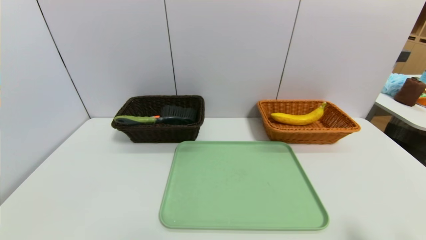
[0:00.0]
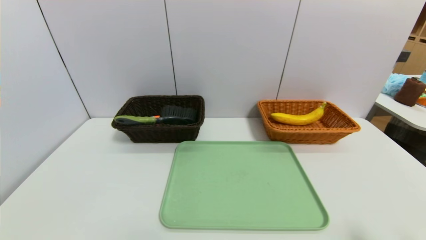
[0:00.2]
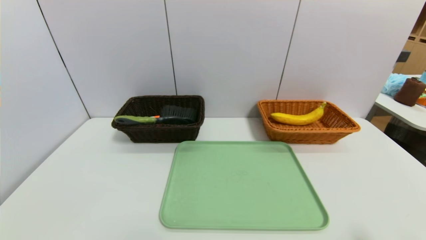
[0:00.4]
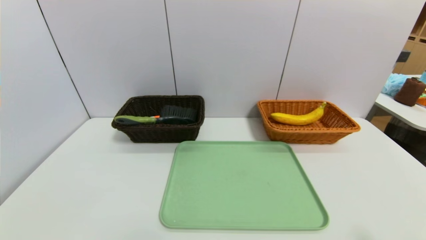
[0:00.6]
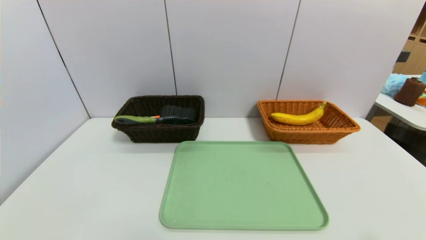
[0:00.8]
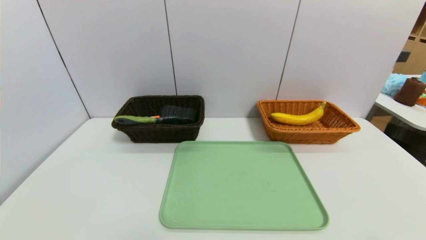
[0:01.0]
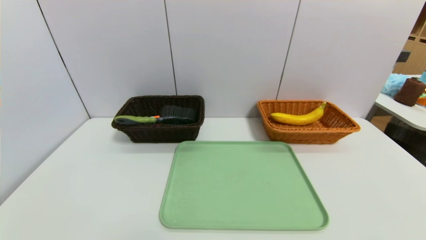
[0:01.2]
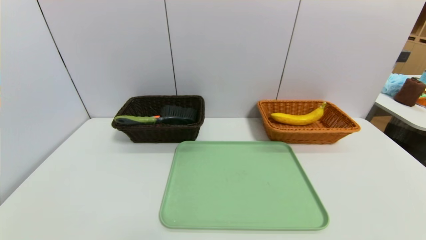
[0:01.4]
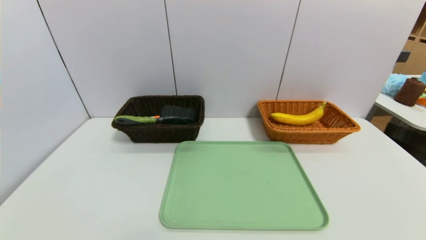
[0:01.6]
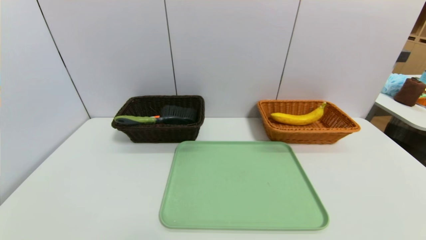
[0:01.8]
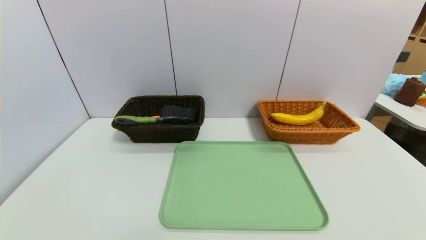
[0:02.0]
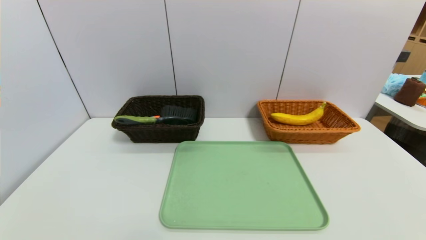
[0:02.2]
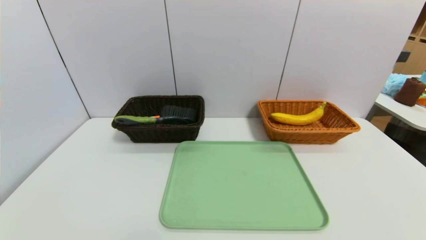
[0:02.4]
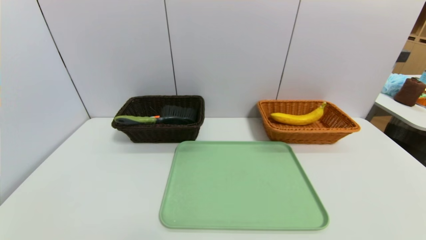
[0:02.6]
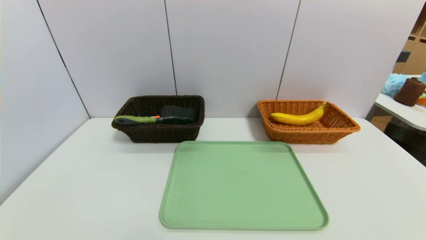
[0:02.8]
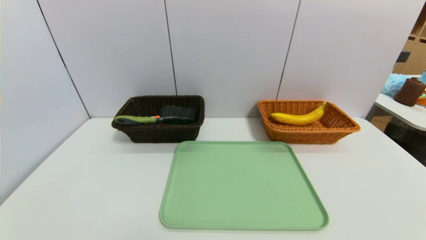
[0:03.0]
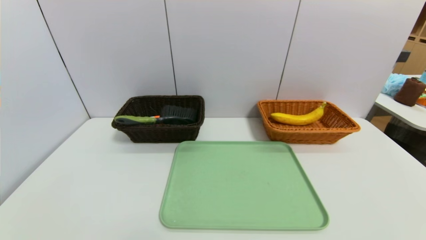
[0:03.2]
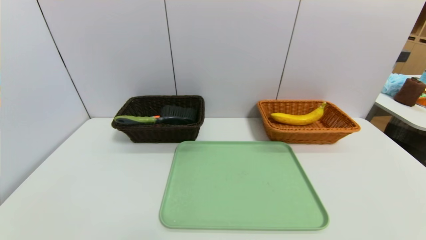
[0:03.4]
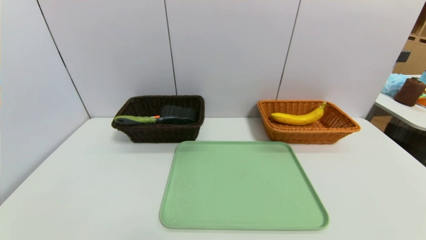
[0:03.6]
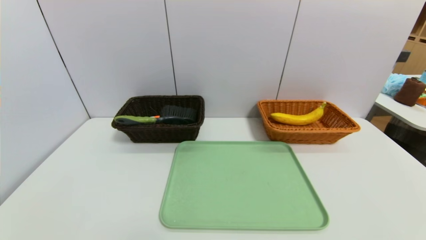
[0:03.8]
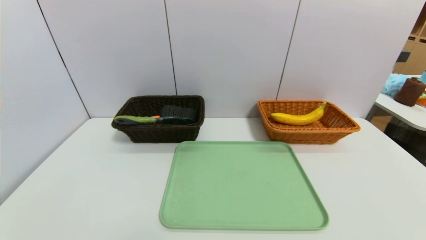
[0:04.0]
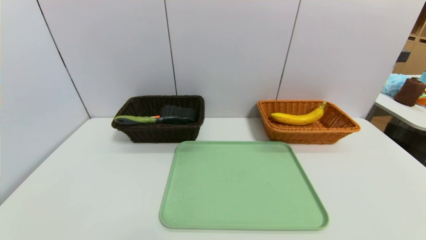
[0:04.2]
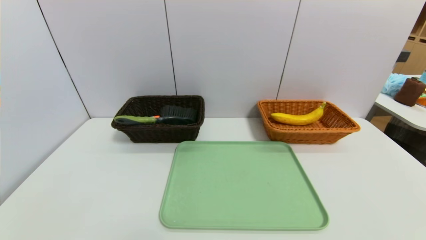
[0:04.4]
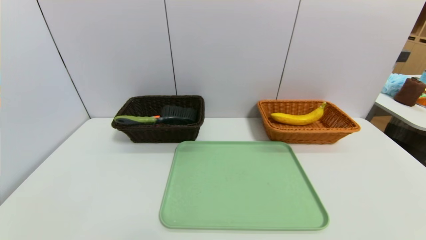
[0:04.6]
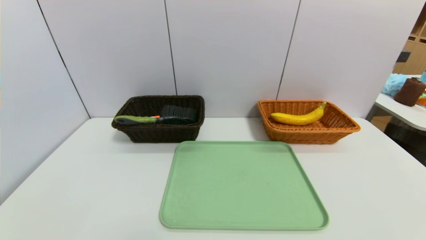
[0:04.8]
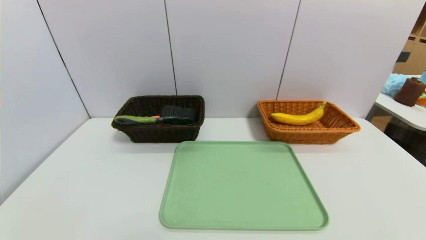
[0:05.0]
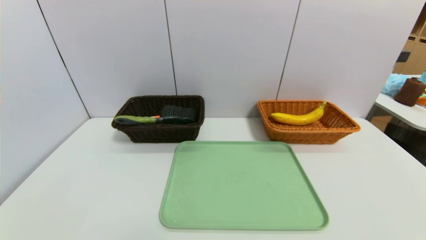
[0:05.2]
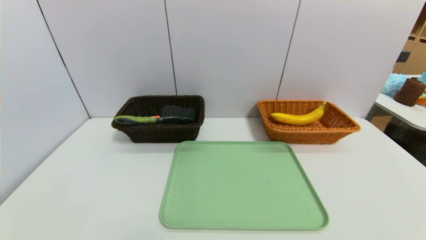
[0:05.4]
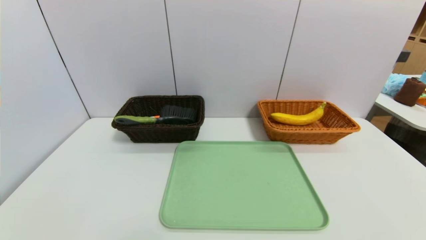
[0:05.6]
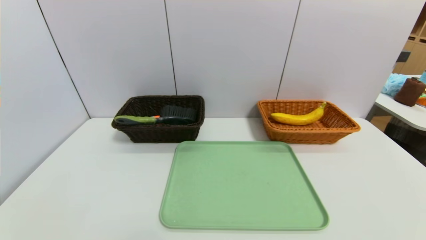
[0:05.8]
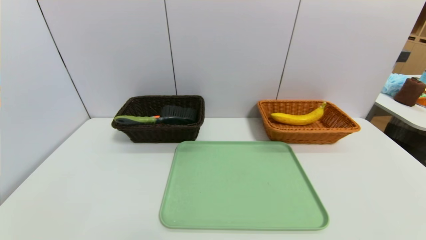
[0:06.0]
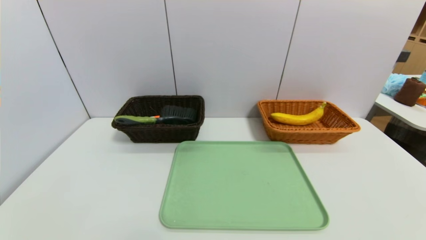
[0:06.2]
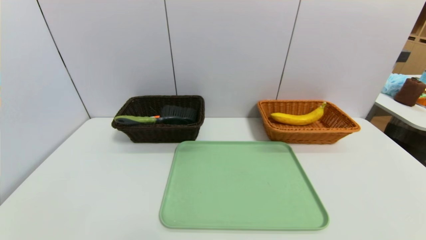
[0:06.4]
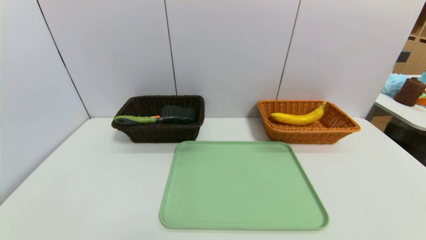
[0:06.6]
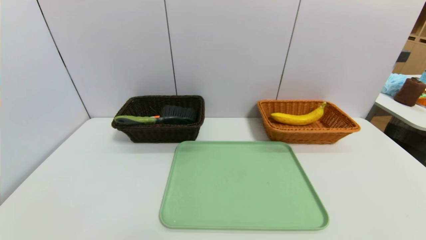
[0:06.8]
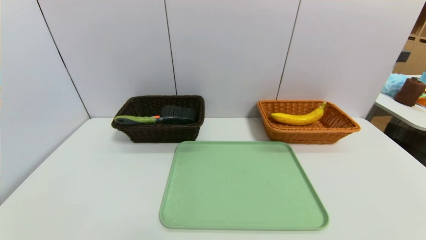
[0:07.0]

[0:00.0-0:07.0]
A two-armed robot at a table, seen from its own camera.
Task of the whole recording: place the food in the right basket with the right gripper, and place the non food items in the left basket with the left gripper.
0:05.6 to 0:07.0: Neither gripper changes place.

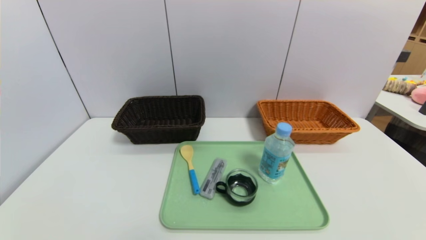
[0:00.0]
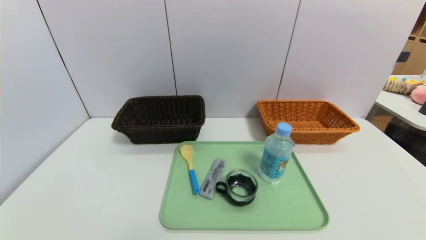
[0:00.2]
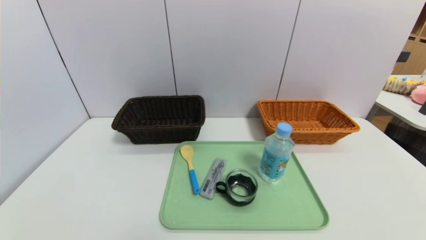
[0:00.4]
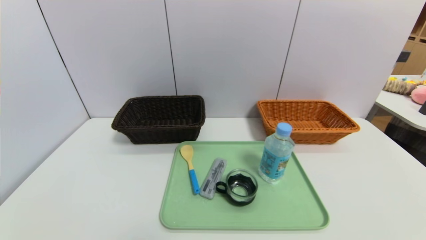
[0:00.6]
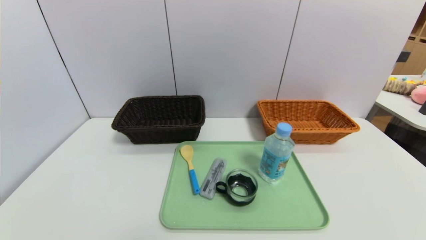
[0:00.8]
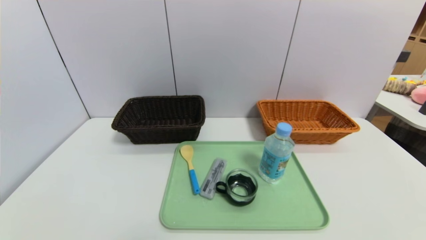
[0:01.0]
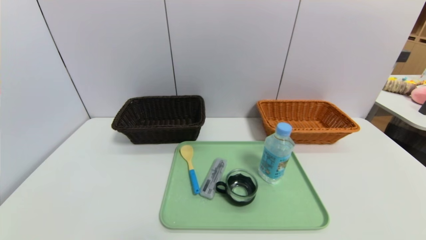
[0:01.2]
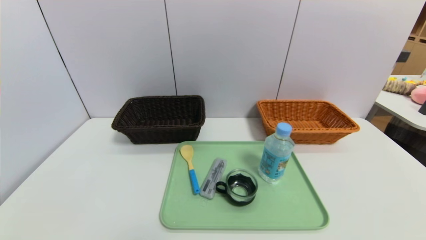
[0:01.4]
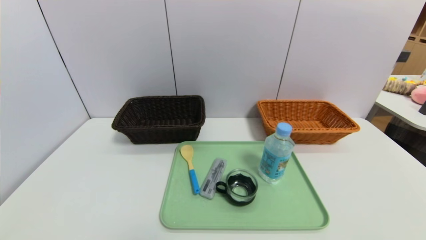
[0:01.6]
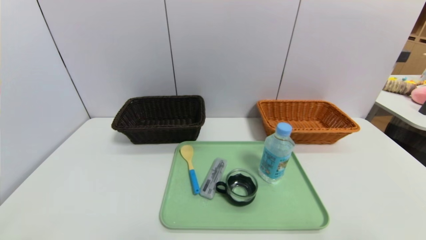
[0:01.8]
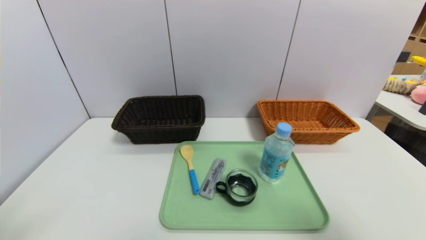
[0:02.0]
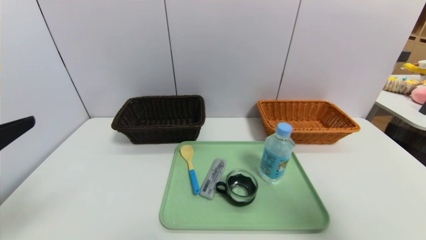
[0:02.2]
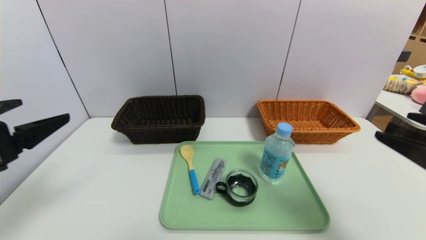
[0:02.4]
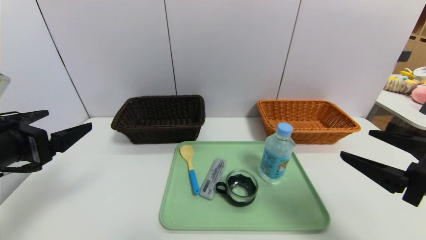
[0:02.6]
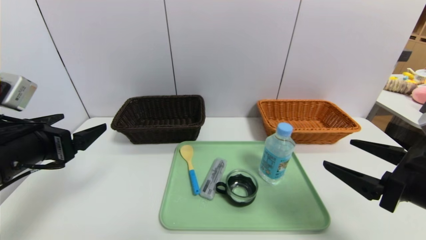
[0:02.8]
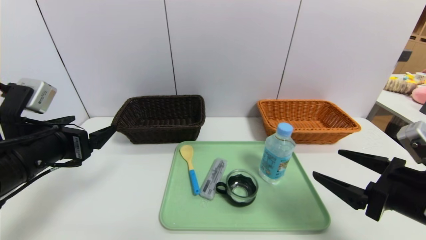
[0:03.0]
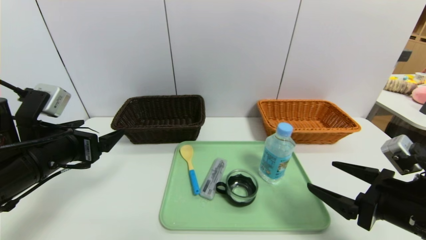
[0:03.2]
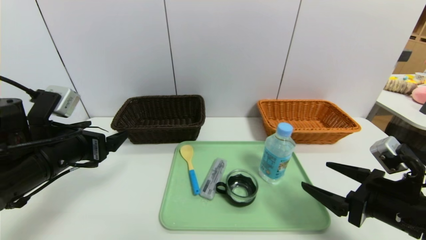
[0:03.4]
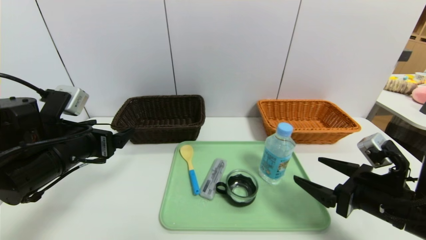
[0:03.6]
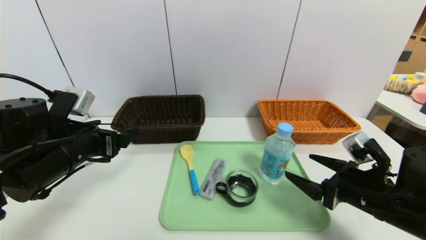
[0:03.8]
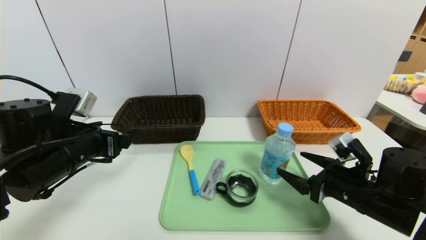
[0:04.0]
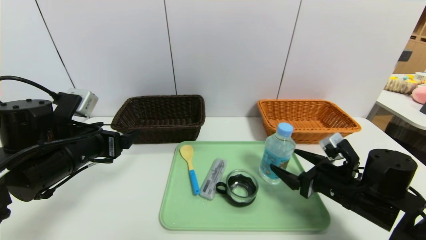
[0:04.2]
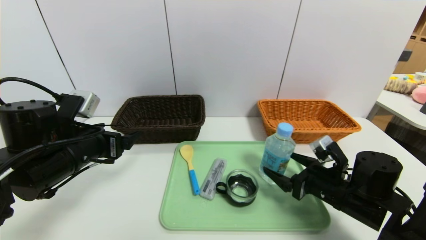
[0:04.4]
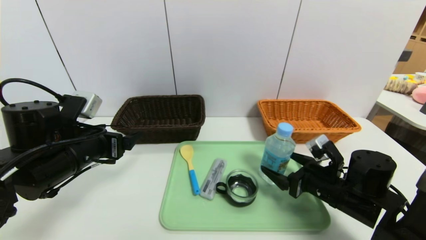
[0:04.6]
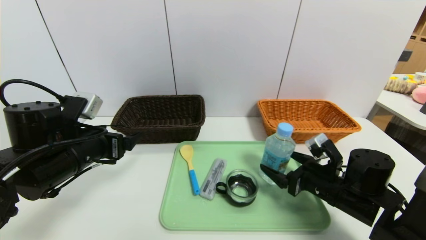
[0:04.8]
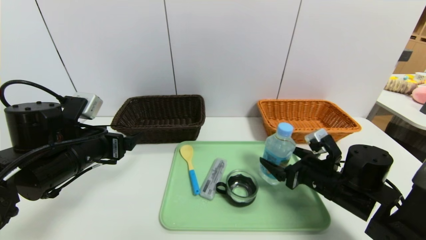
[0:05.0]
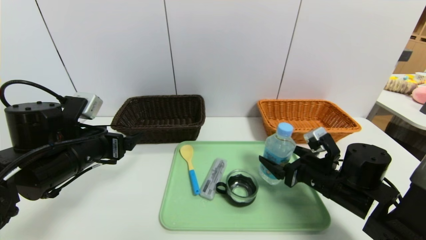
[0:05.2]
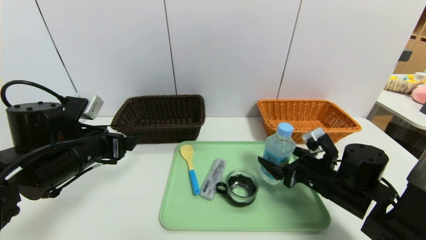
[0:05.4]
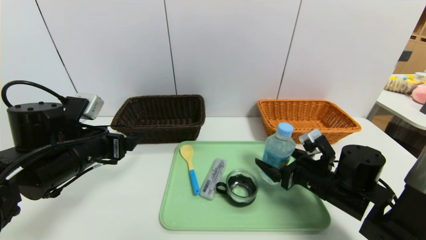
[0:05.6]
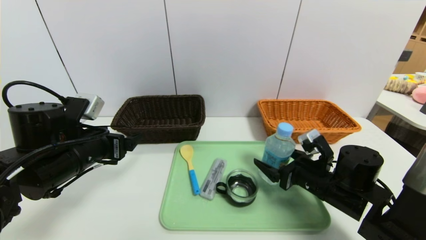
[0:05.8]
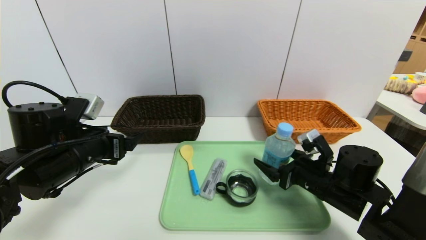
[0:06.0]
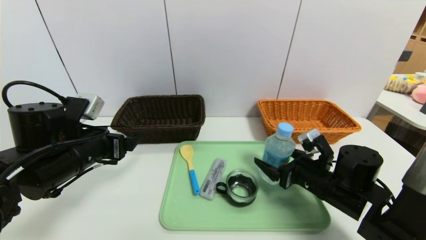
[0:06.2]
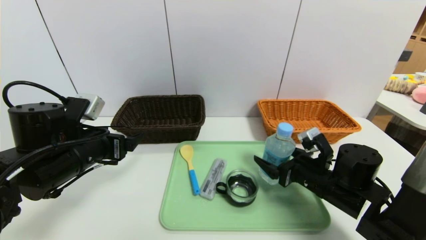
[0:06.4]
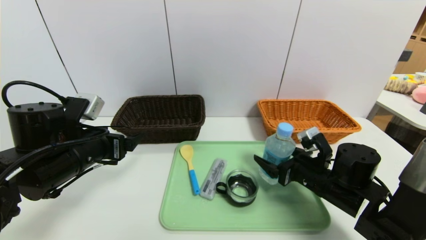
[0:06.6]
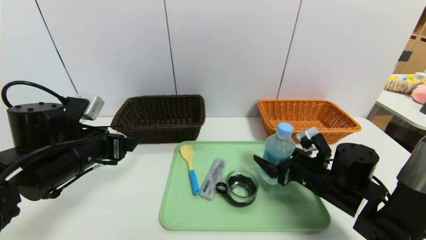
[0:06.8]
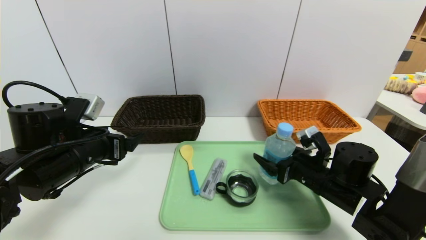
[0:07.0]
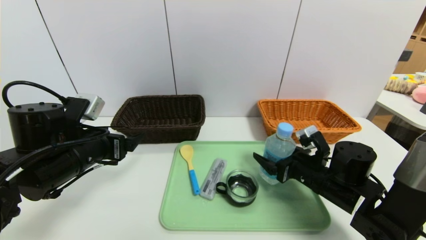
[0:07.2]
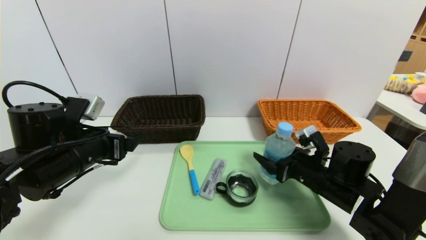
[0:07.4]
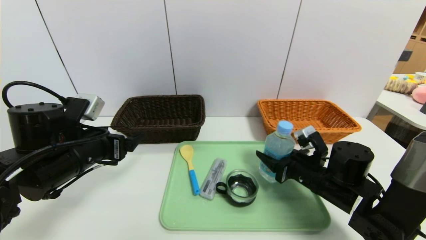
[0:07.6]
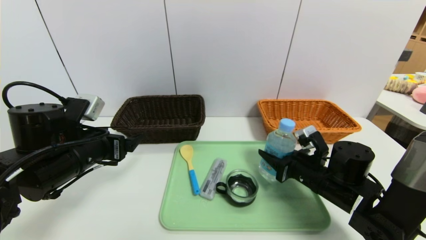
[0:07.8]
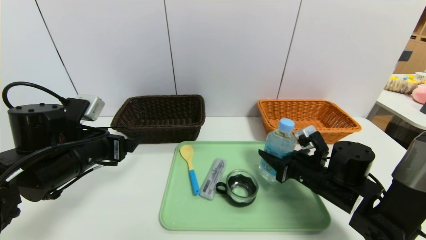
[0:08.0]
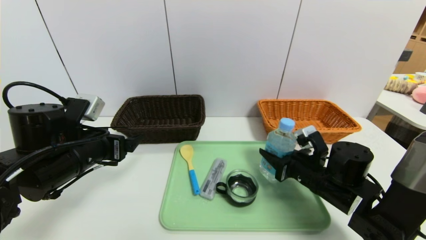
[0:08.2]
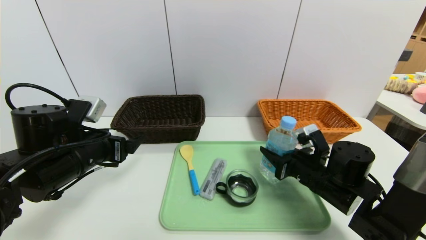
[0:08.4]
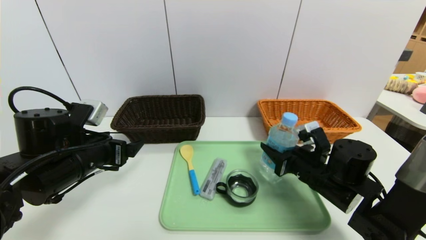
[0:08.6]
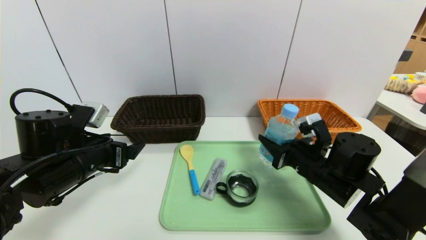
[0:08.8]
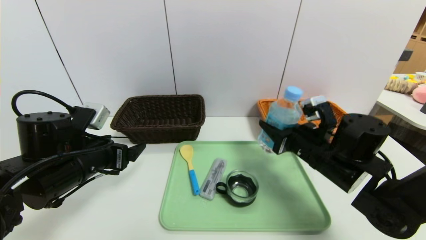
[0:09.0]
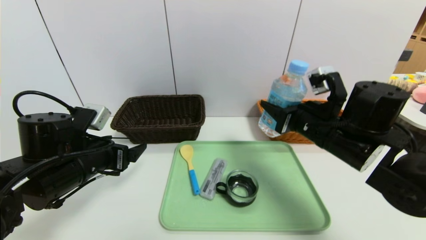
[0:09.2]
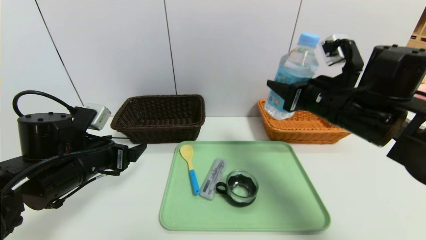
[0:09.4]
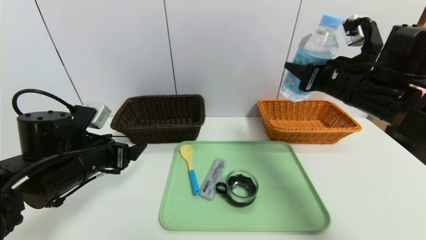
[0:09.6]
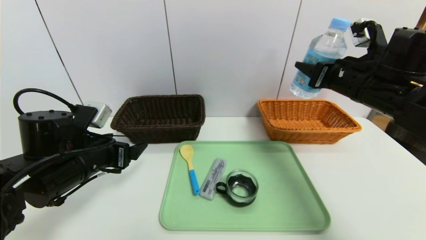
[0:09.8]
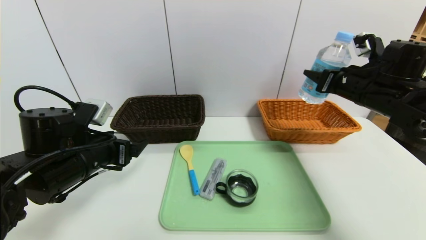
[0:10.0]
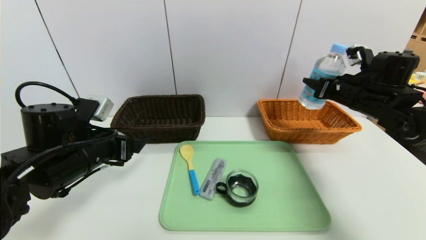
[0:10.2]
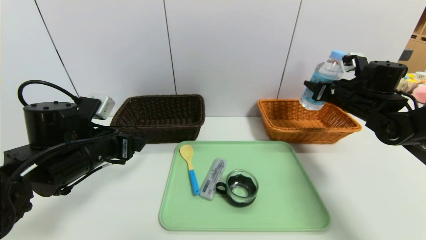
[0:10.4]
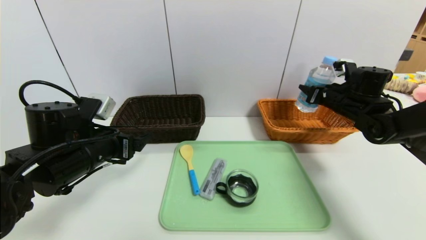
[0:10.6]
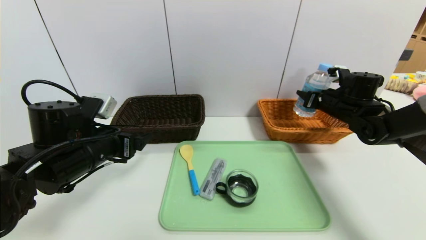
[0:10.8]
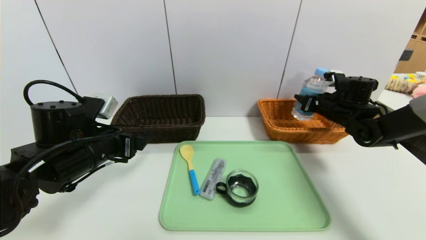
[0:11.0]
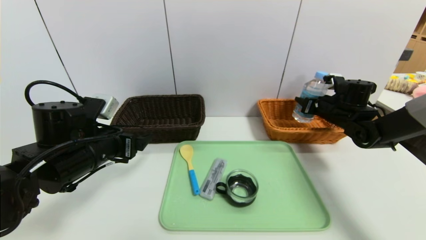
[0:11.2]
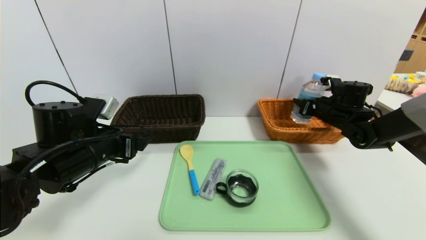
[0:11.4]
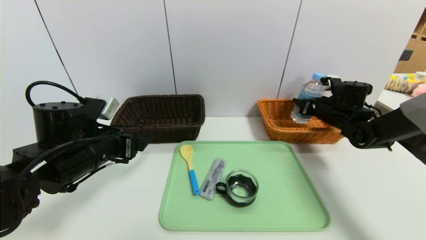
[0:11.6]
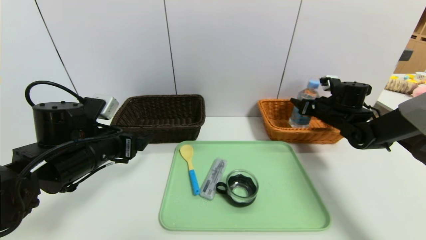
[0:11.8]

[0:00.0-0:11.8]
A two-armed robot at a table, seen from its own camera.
Task of the whole recording: place the food in the right basket with the right gripper, and place the non food items in the left basket with the left gripper.
0:01.4 to 0:03.0: Both grippers travel together forward, about 20 cm.
0:03.0 to 0:04.4: The left gripper ends up about 5 cm from where it was, while the right gripper shifts approximately 15 cm forward and downward.
0:04.4 to 0:06.0: The grippers move only a little.
0:06.0 to 0:07.4: The two grippers keep their place.
0:07.4 to 0:08.8: The right gripper closes its fingers.
0:08.8 to 0:10.4: The right gripper travels forward, to the right and upward by roughly 20 cm.
0:10.4 to 0:11.8: The right gripper heads downward, covering some 5 cm.
